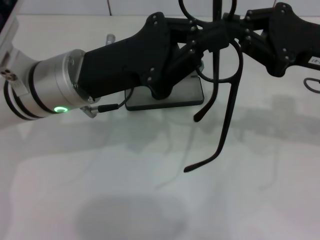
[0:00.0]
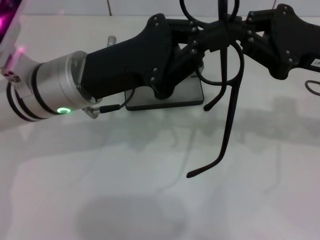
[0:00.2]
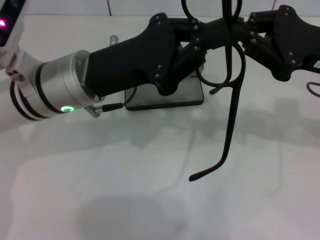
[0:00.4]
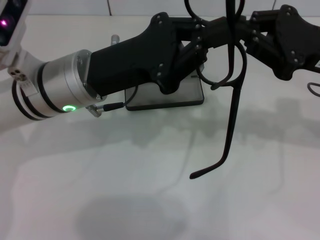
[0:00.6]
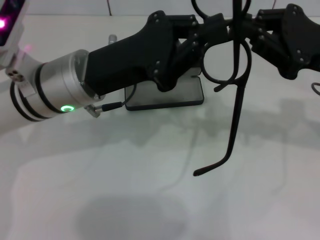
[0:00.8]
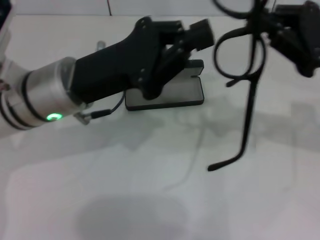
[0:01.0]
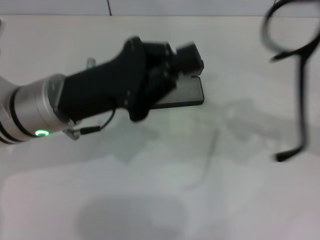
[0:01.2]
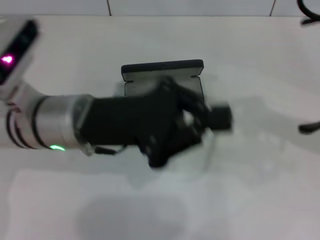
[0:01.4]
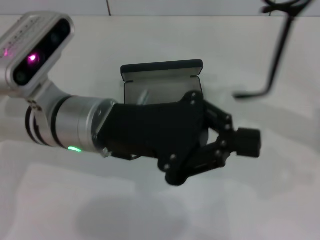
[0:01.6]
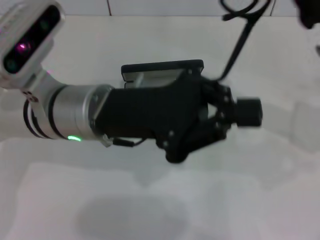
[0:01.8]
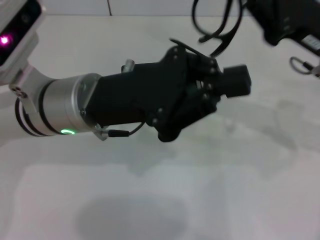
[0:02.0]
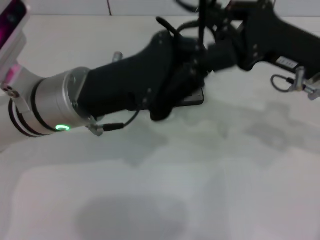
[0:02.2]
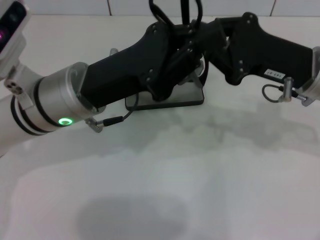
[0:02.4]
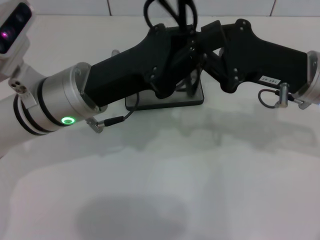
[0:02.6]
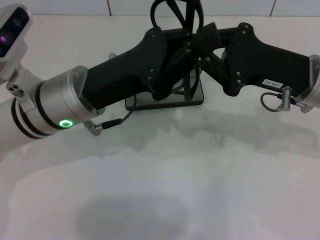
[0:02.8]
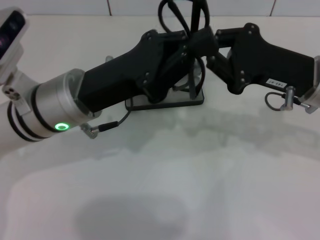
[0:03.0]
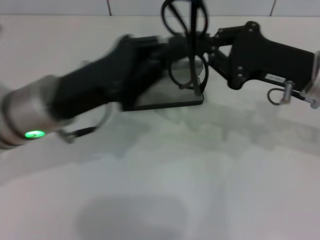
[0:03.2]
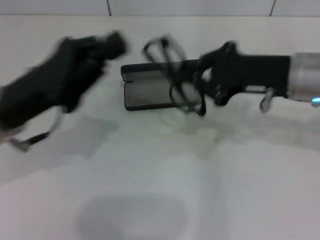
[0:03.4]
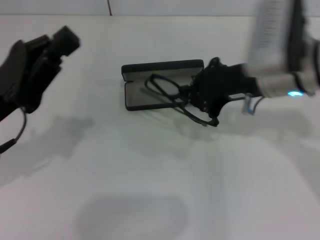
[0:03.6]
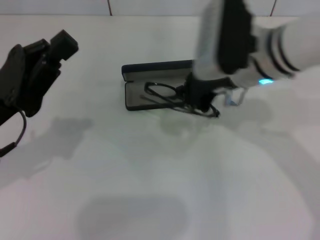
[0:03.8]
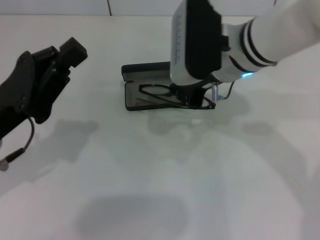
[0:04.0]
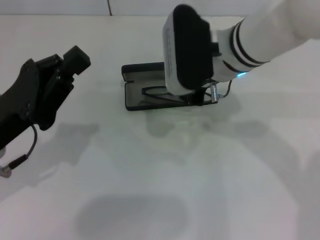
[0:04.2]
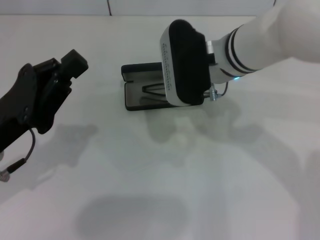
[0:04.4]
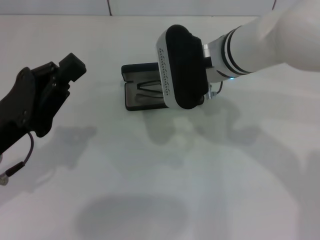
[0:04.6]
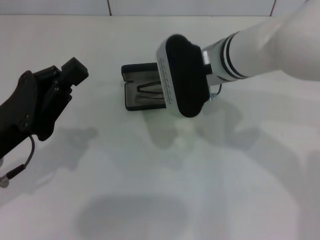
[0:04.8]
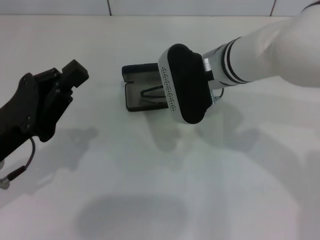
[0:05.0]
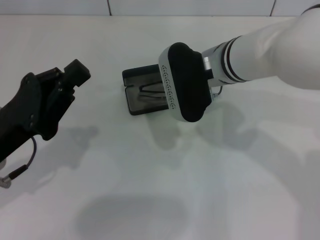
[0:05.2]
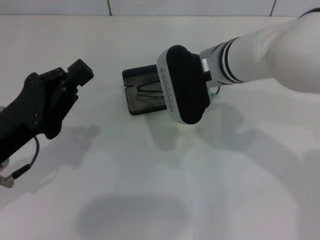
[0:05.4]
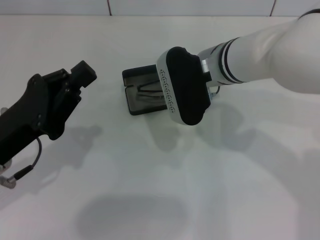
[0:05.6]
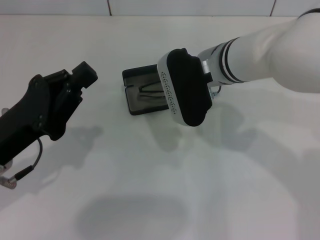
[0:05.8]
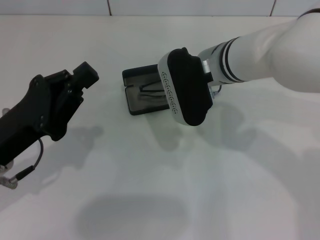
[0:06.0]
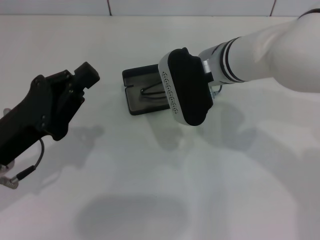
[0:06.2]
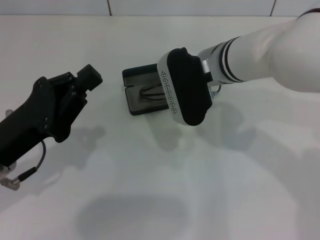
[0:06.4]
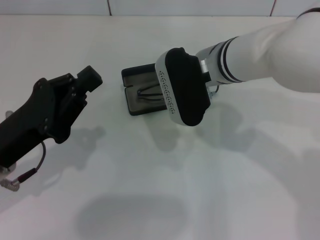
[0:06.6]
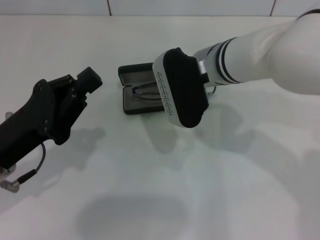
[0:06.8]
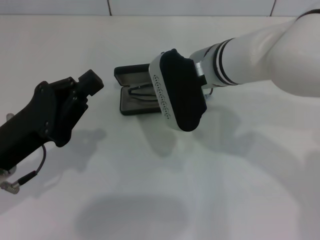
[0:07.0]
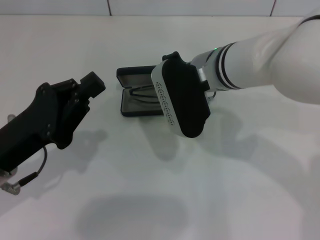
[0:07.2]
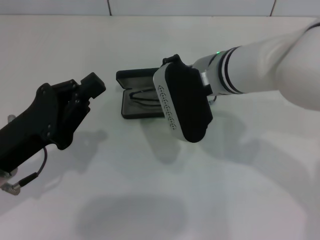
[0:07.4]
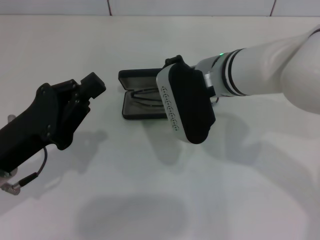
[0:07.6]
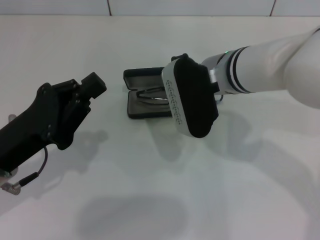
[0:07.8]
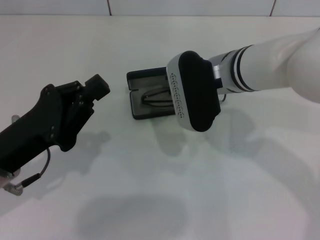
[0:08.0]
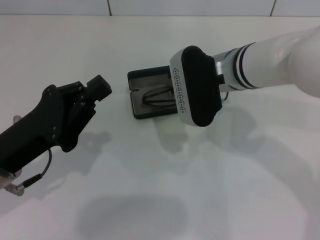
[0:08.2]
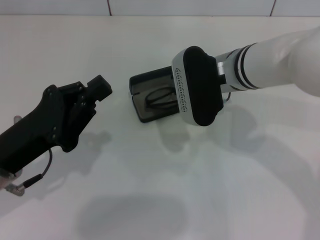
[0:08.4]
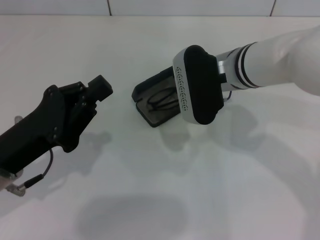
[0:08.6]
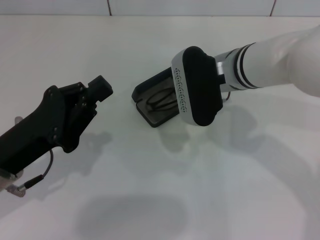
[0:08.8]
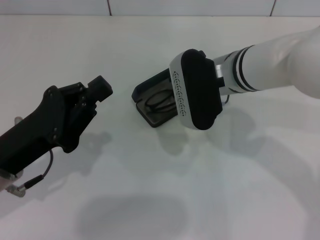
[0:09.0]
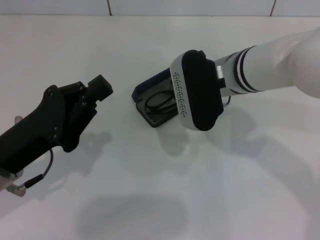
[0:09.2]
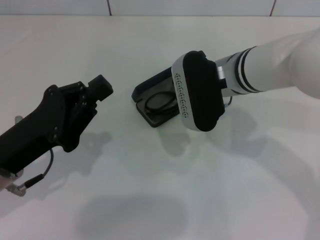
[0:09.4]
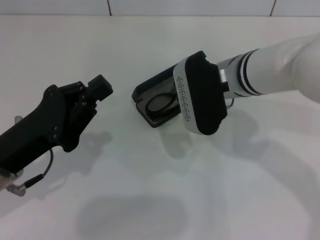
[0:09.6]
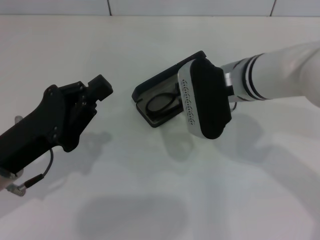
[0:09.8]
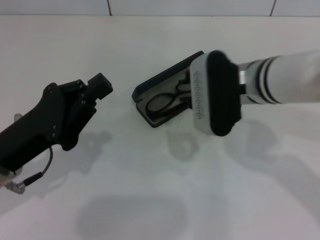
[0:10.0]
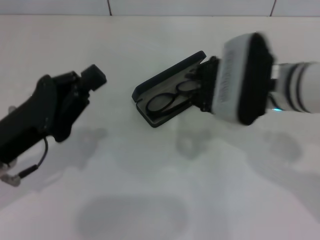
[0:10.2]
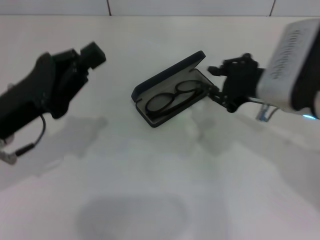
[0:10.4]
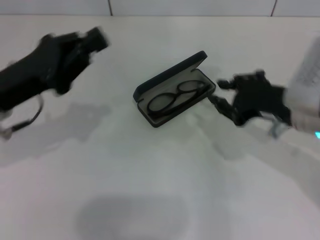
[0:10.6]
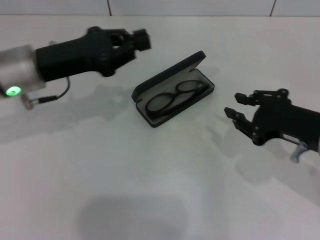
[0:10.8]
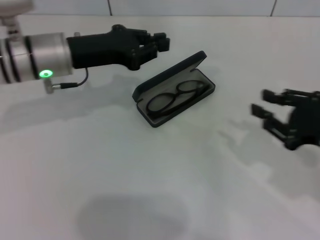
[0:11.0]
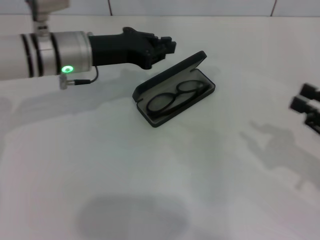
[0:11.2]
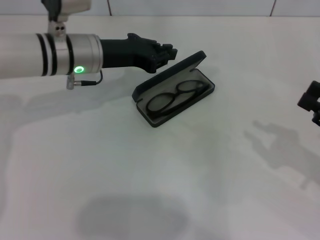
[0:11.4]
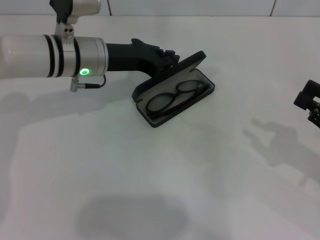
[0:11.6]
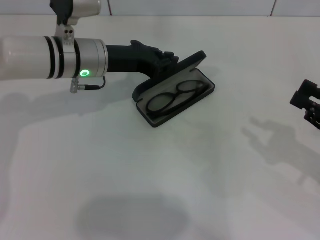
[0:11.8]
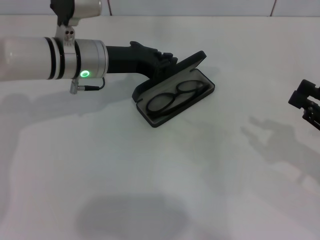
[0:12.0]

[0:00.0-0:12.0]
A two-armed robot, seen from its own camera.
Step, 0:00.0 to 0:02.8: Fold the frame with your left hand.
Step, 0:03.0 to 0:10.0: Put the glasses into the case with your right hand.
0:01.6 to 0:03.0: The right gripper travels to the left by some 5 cm.
0:03.0 to 0:04.4: The right gripper shifts about 15 cm to the left; the left gripper moves to the left and backward, roughly 15 cm.
0:04.4 to 0:09.0: The grippers move only a little.
0:09.0 to 0:10.4: The right gripper travels to the right and backward by roughly 10 cm.
0:10.4 to 0:12.0: The left gripper shifts some 20 cm forward and to the right. Meanwhile the right gripper heads to the right and backward, covering roughly 15 cm.

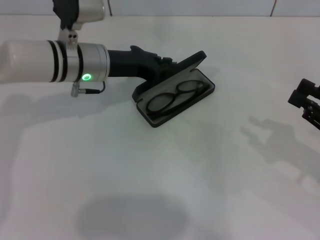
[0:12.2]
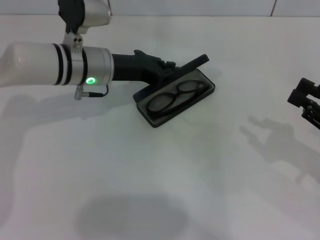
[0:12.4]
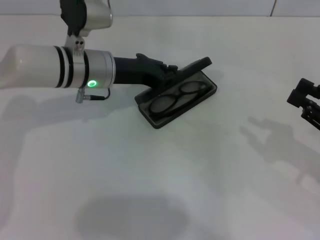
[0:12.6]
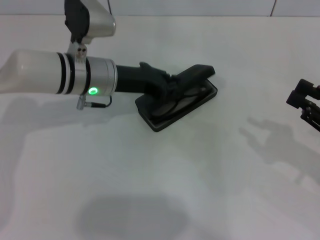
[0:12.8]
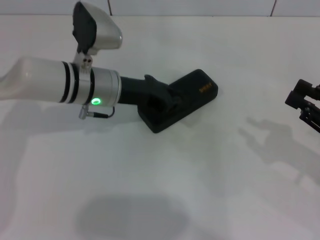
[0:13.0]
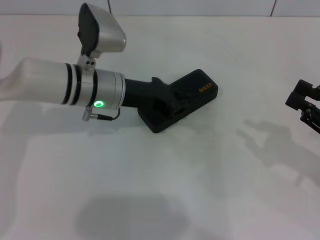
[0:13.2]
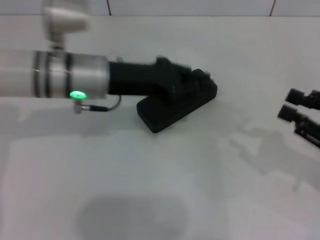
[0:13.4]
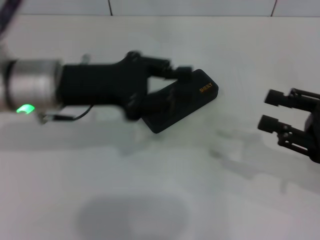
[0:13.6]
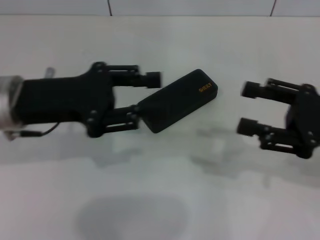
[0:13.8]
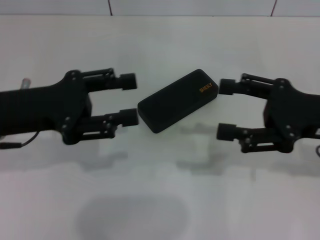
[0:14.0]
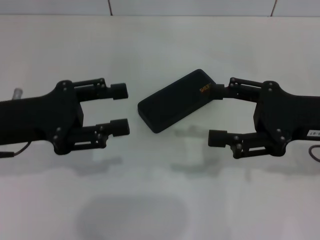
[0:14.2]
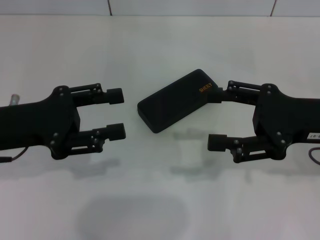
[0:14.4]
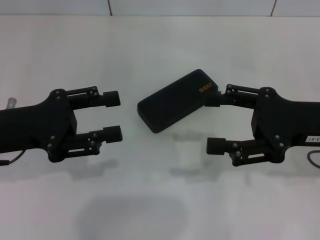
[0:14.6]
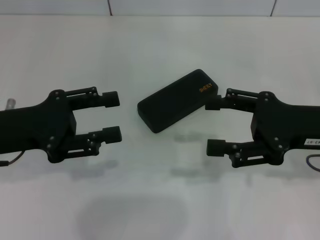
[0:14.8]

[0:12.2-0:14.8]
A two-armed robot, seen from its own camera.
0:12.2 to 0:13.4: The left gripper goes roughly 5 cm backward.
0:13.4 to 0:14.8: The left gripper travels to the left and backward by approximately 15 cm, and opens its fingers; the right gripper goes roughly 10 cm to the left, and opens its fingers.

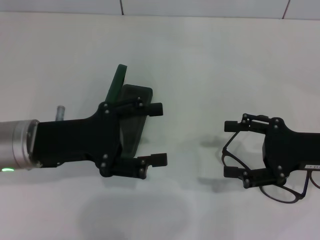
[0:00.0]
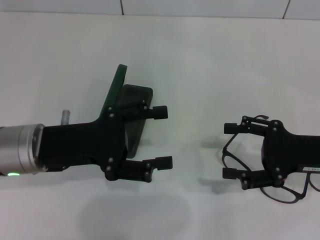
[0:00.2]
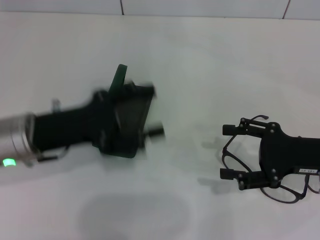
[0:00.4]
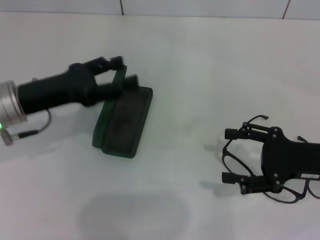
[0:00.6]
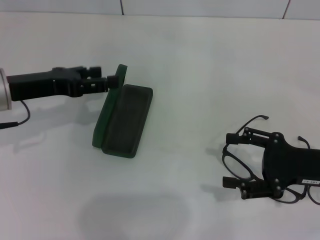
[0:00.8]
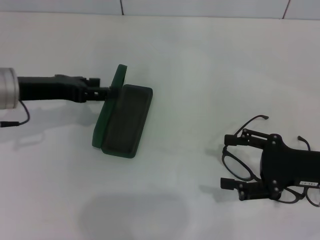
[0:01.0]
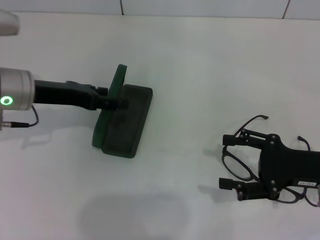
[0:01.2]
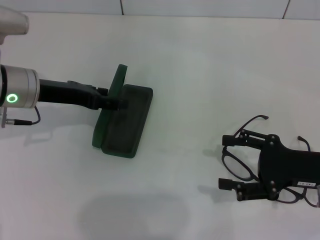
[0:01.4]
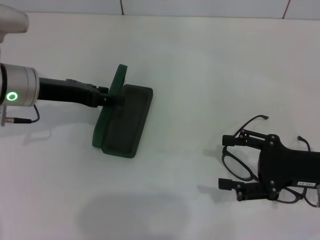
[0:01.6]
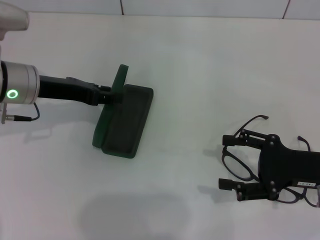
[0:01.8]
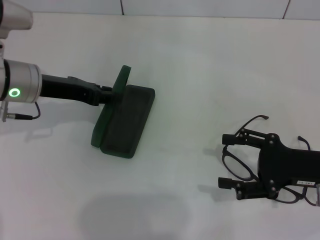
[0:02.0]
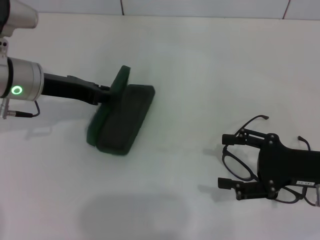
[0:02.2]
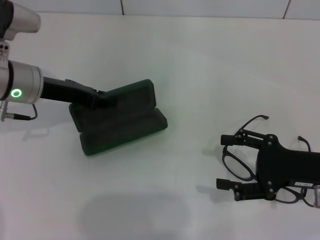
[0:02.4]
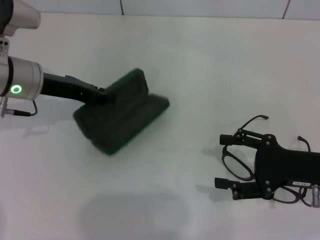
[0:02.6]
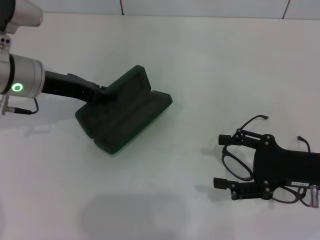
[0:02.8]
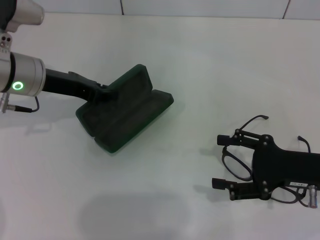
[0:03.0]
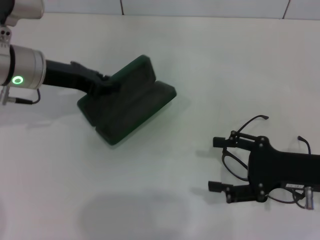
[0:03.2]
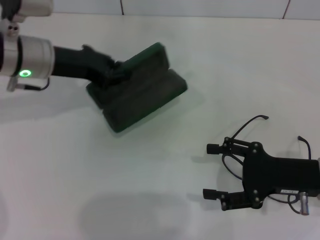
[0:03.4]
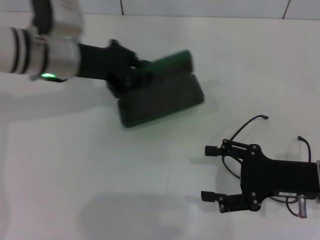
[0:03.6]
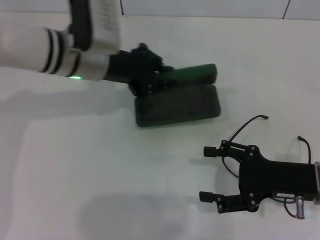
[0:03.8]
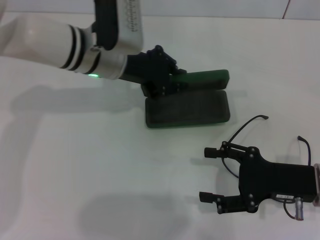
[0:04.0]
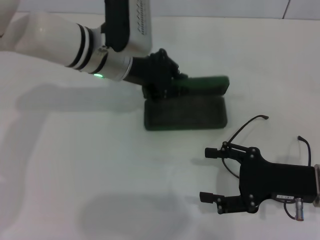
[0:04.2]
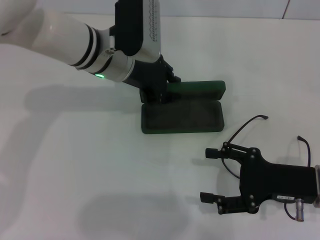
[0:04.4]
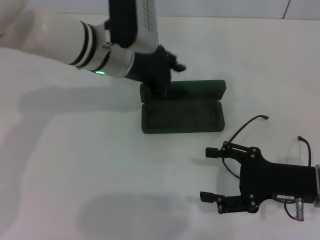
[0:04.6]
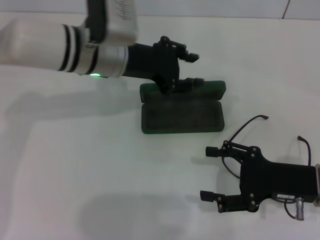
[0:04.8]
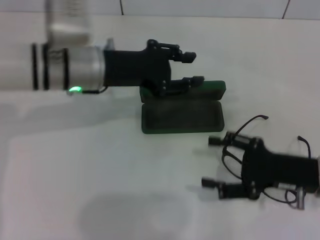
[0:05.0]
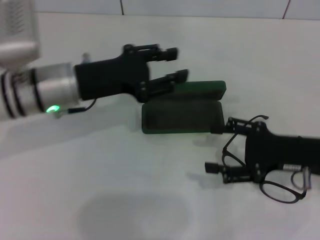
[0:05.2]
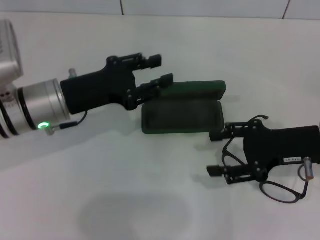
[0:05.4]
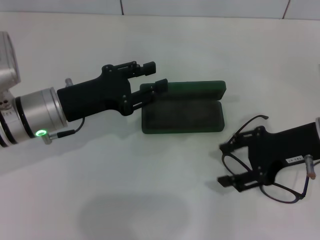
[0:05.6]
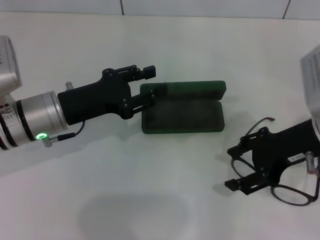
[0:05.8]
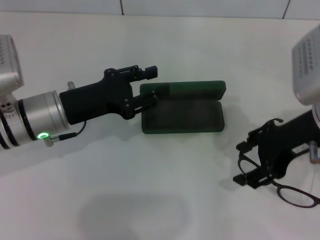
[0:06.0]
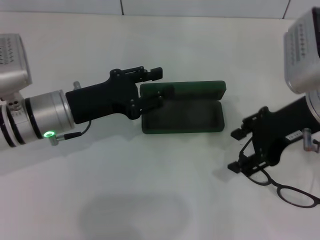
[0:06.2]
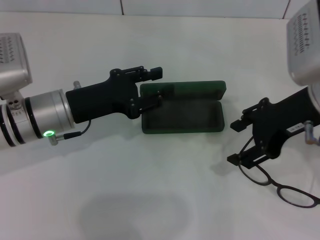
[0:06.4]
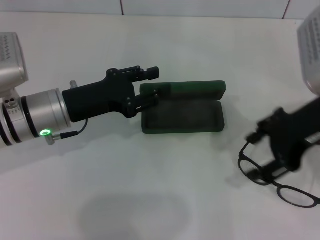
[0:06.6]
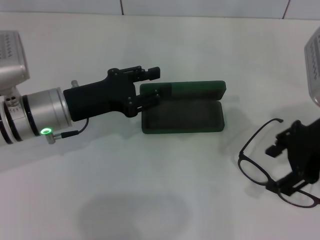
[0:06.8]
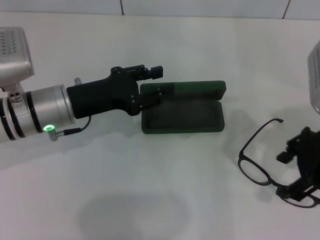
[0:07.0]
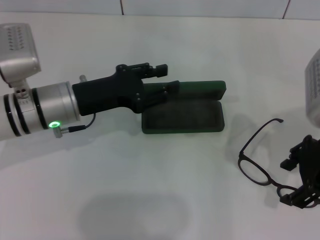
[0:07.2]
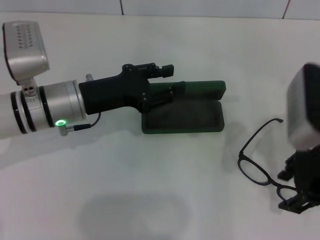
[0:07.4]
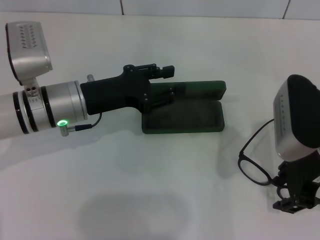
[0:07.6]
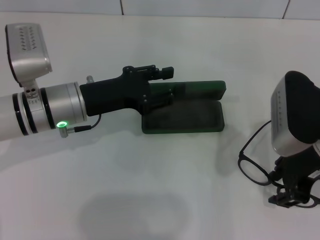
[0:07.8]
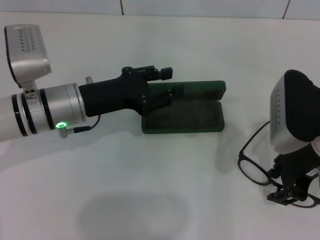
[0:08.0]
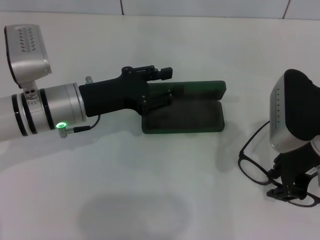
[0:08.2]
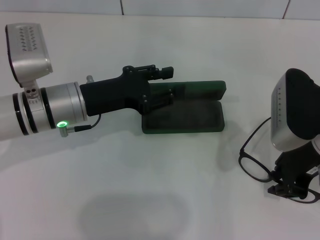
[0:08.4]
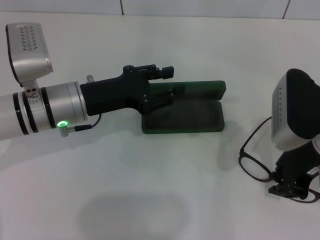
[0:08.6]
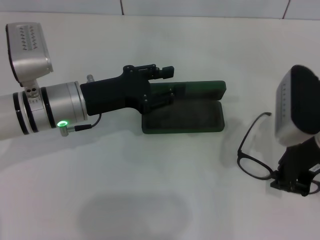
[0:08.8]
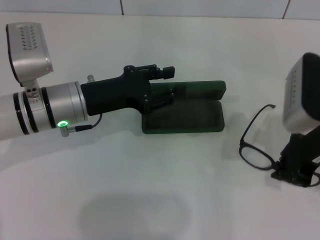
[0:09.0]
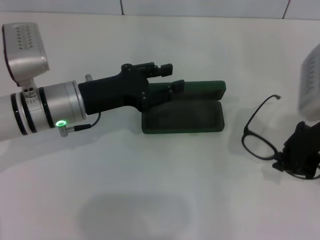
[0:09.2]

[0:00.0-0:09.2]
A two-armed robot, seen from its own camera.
Step, 0:00.0 to 0:01.8: Grab the glasses case with your left hand.
Step, 0:02.2 to 0:04.2: Place the glasses case in the center of the table with your left hand.
Step, 0:04.6 to 0:08.8: Grab the eyeglass frame with your right hand.
0:00.0 to 0:01.6: The left gripper travels forward by some 10 cm.
0:01.6 to 0:03.0: The left gripper closes.
0:03.0 to 0:04.6: The left gripper travels to the right by roughly 10 cm.
0:04.6 to 0:06.2: The left gripper travels backward, to the left and downward by approximately 15 cm; the right gripper travels upward and forward by roughly 15 cm.
0:07.6 to 0:09.2: The right gripper closes up.
